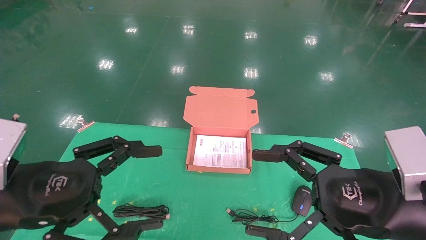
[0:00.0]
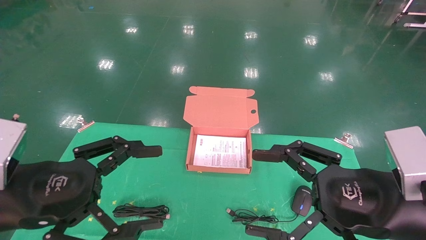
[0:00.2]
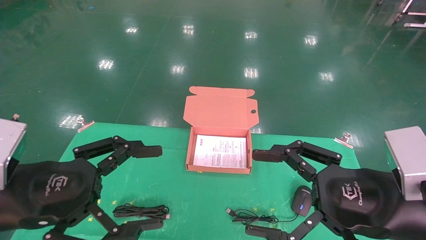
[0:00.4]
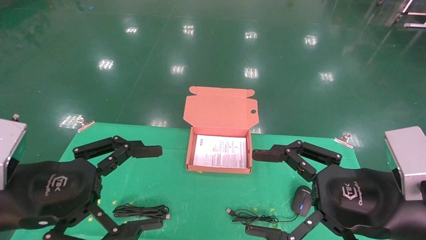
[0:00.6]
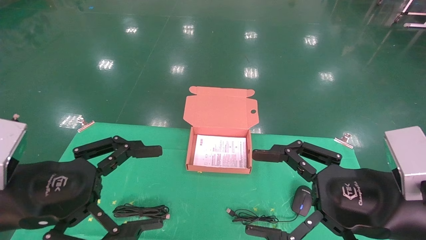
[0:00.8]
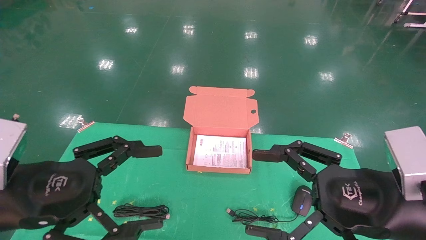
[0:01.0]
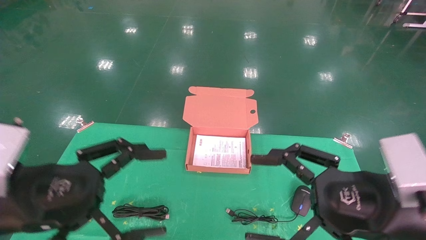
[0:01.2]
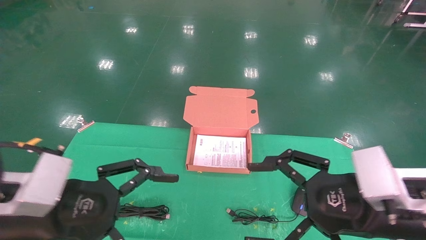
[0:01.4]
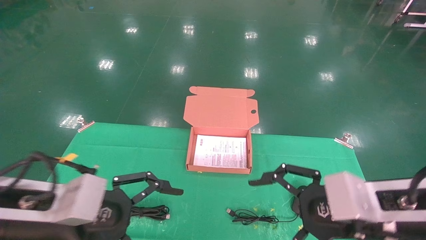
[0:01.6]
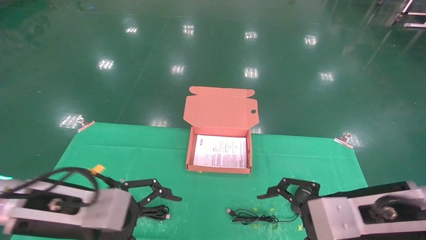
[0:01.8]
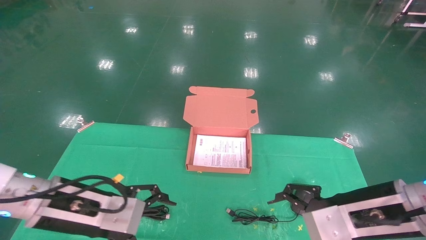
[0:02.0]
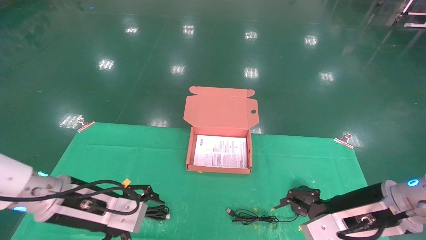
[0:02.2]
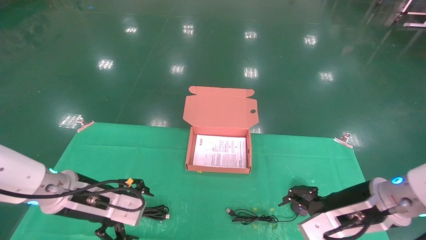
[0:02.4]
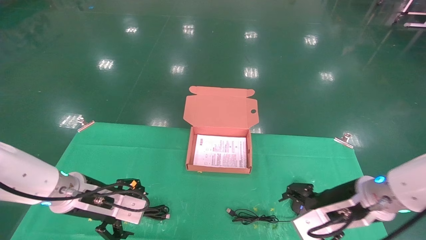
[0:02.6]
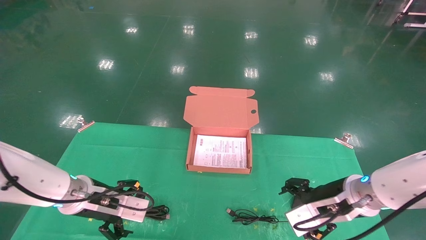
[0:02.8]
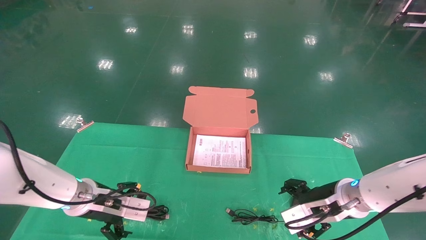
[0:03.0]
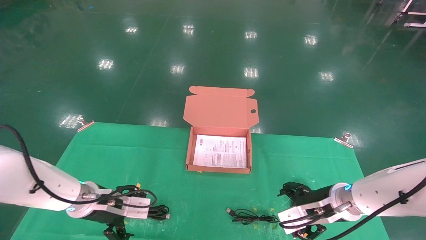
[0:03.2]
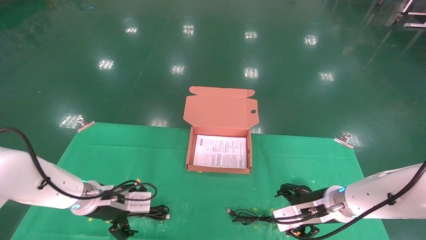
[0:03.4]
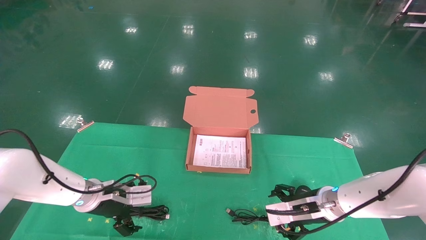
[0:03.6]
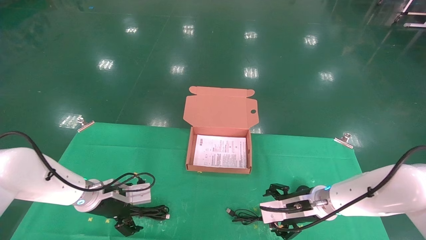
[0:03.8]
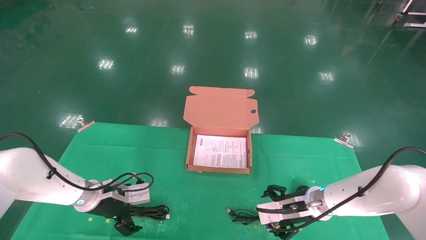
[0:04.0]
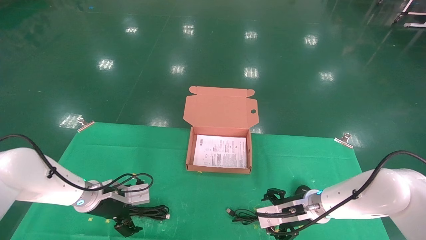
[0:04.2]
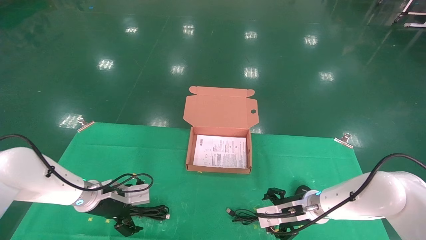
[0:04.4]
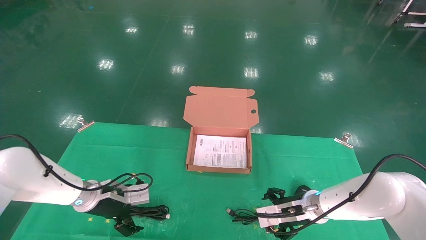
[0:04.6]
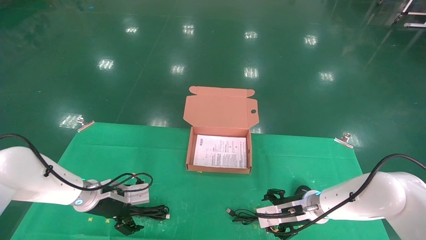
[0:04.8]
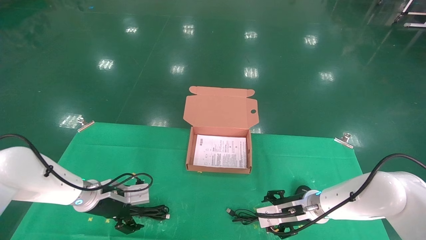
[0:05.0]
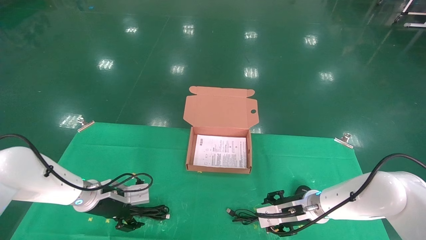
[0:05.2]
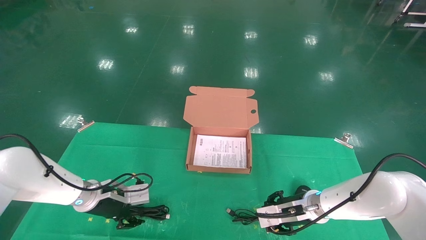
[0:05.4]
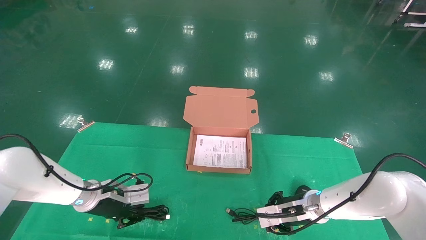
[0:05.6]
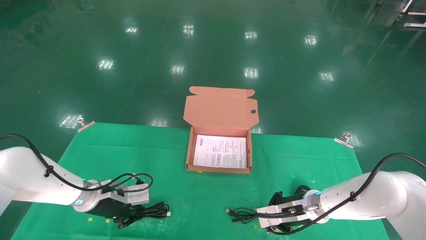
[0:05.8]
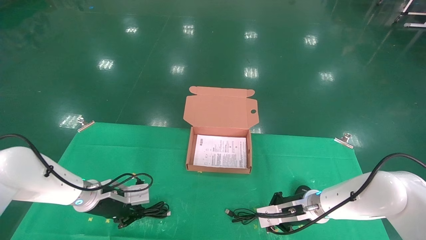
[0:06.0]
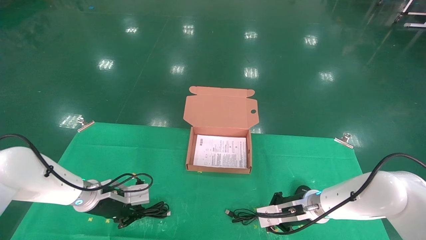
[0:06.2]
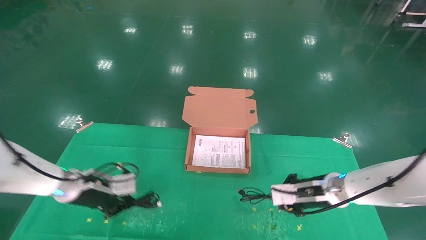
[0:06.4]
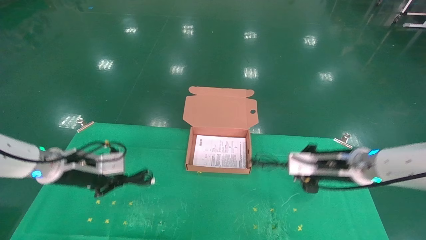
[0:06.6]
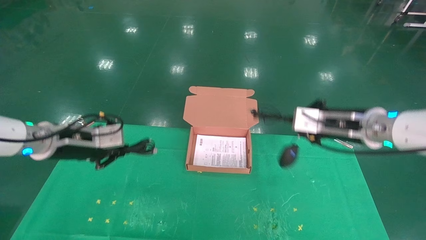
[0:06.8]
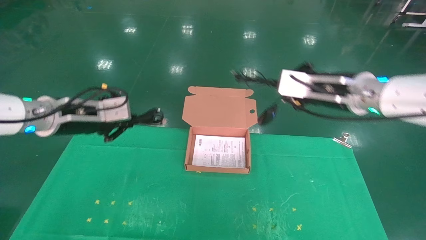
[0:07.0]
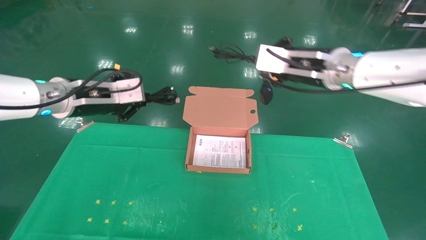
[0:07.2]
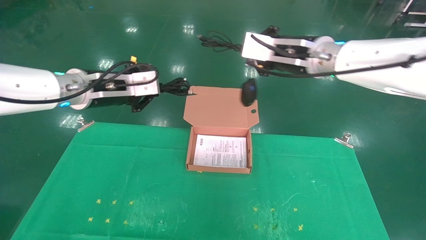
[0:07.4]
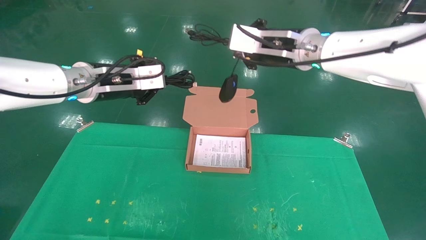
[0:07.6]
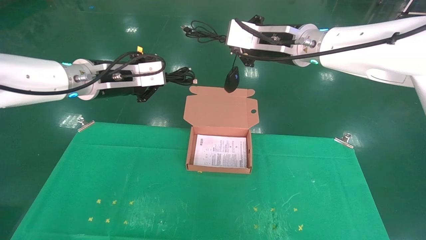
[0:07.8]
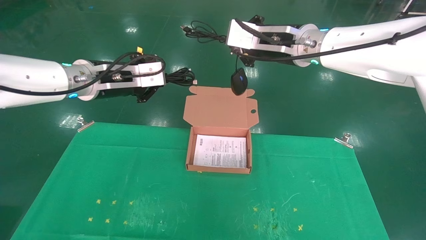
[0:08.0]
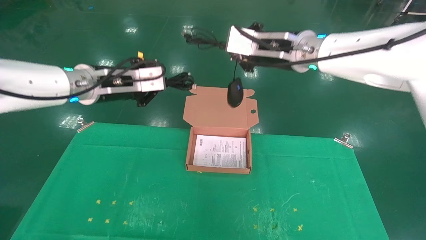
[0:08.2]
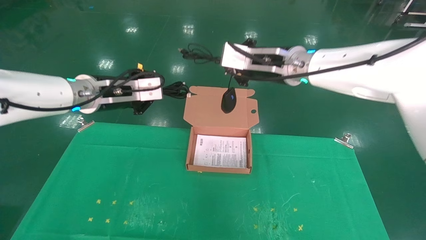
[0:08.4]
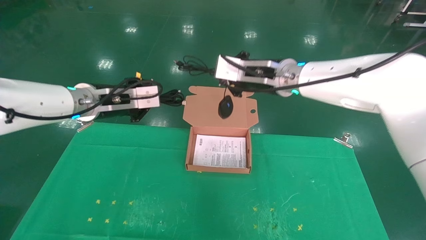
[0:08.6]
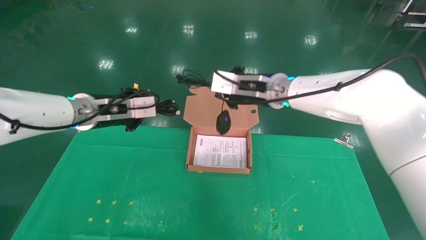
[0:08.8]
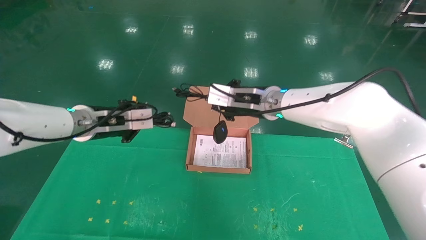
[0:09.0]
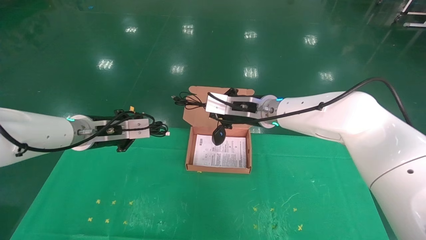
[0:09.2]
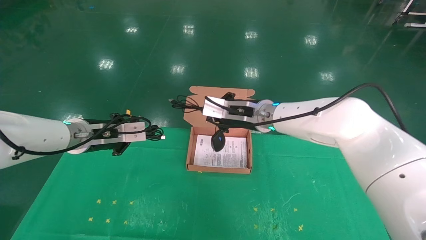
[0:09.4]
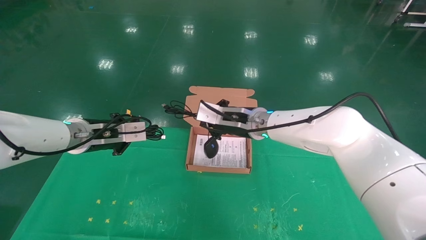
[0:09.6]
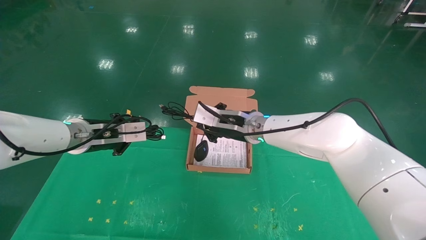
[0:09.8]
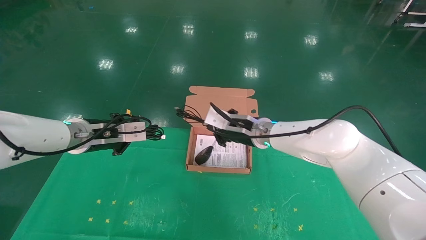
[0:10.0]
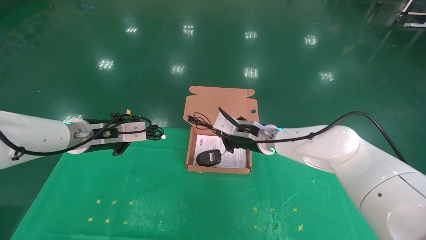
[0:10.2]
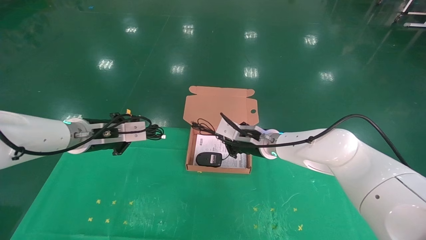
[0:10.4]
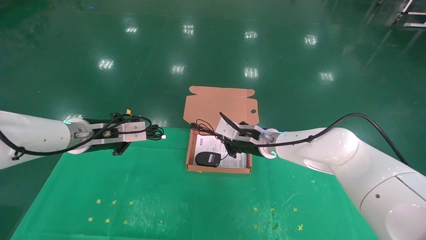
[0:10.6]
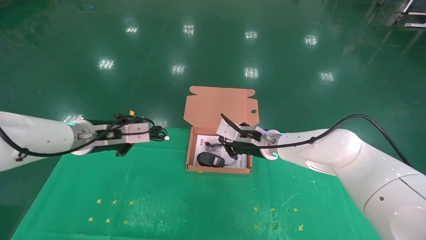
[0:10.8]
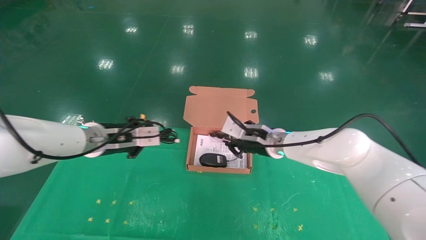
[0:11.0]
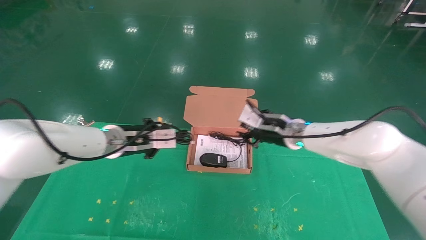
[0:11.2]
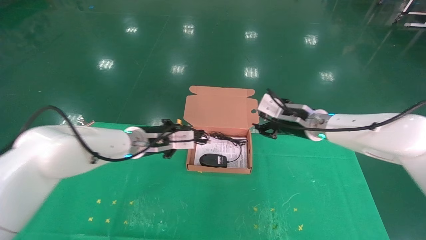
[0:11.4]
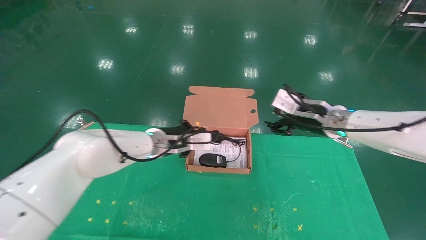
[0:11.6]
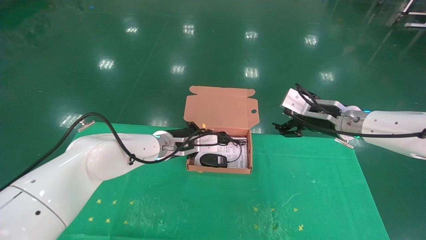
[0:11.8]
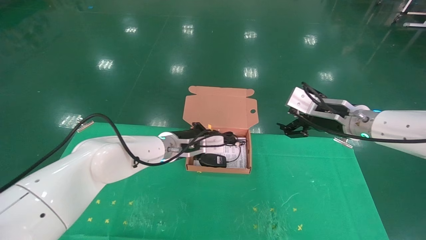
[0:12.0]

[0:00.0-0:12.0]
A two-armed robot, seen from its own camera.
Task of the whole recording: grasp data cable left put into box grasp mouse right put into box.
Step, 0:00.8 to 0:05.8: Grab and pick up both the mouse and power cord from the accessory packaging area at the same time.
0:00.0 to 0:01.6: The left gripper changes place by about 5 cm.
0:01.6 to 0:03.0: Both grippers move forward and downward, roughly 15 cm.
0:03.0 to 0:04.4: The left gripper is displaced forward by some 5 cm. Meanwhile the right gripper shifts approximately 10 cm downward and forward.
0:04.4 to 0:06.0: The left gripper closes its fingers.
0:06.0 to 0:07.6: Both grippers travel together upward, approximately 30 cm.
0:07.6 to 0:09.0: The right gripper heads downward and to the left, covering about 10 cm; the left gripper heads downward, covering roughly 10 cm.
0:09.0 to 0:10.4: The right gripper moves downward, about 10 cm.
0:10.4 to 0:12.0: The right gripper goes roughly 20 cm to the right, upward and backward, and opens. Meanwhile the left gripper goes approximately 20 cm to the right.

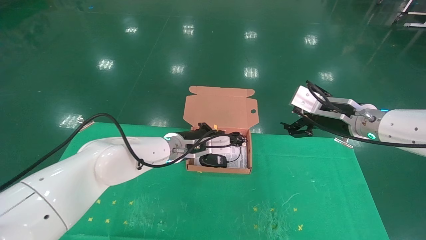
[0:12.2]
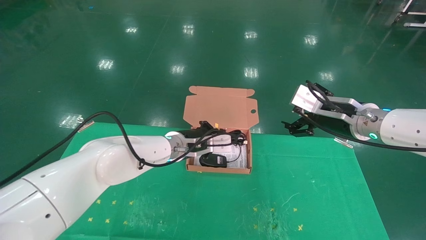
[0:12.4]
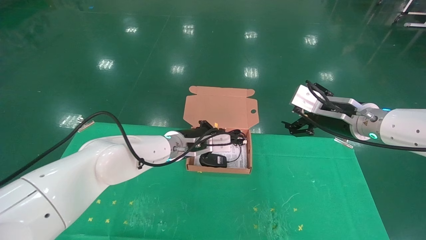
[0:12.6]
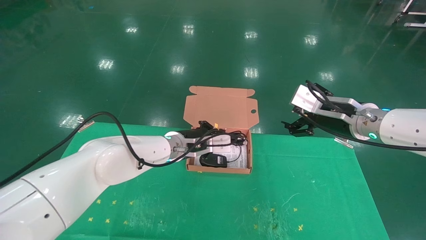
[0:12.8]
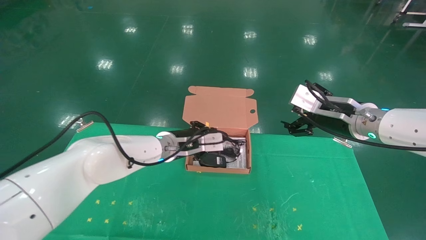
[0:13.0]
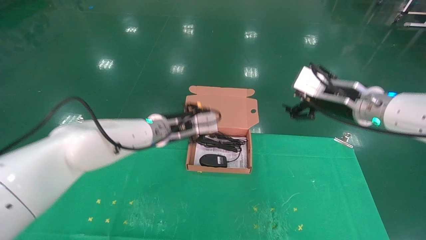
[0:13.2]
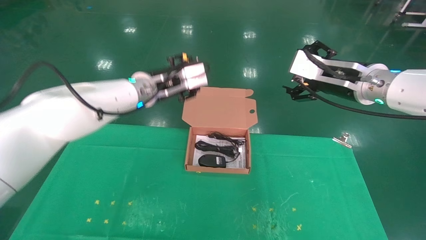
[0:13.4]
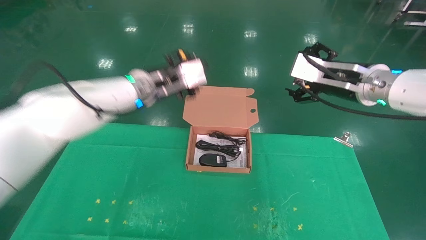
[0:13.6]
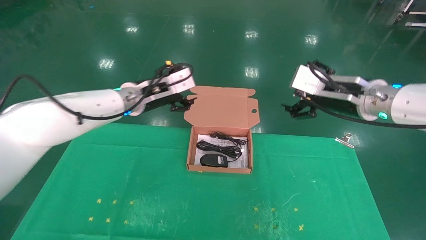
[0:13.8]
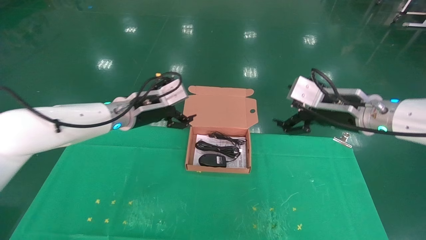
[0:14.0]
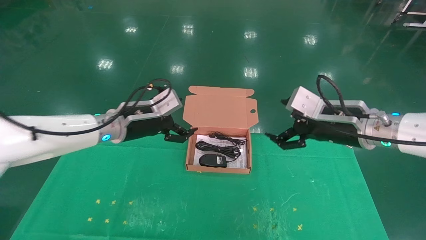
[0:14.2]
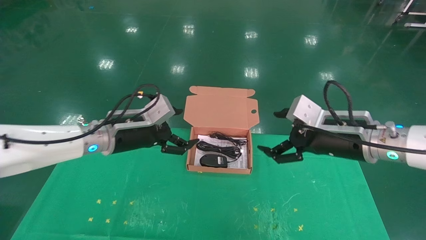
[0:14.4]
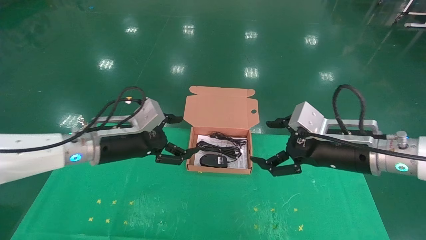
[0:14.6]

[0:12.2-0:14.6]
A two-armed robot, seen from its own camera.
Task of the whole recording: grasp data cable left put into box grasp mouse right put into box.
0:12.2 to 0:13.4: The right gripper is displaced upward by about 5 cm, while the left gripper is displaced upward by approximately 10 cm, and opens its fingers.
0:13.4 to 0:14.6: The right gripper moves downward and backward, roughly 10 cm; the left gripper travels to the left and backward by some 15 cm, and opens.
